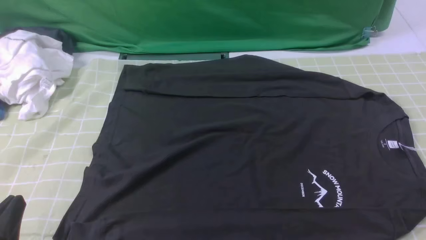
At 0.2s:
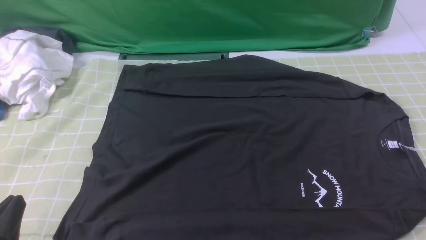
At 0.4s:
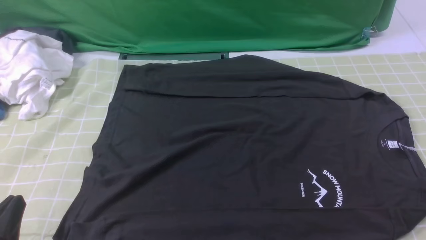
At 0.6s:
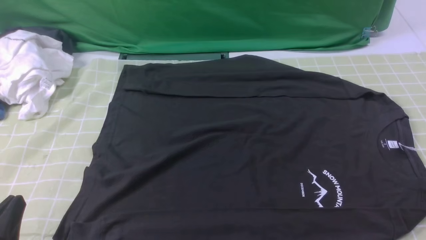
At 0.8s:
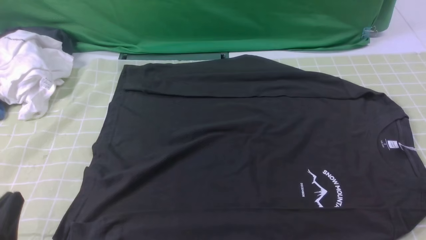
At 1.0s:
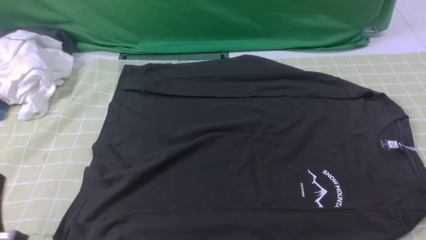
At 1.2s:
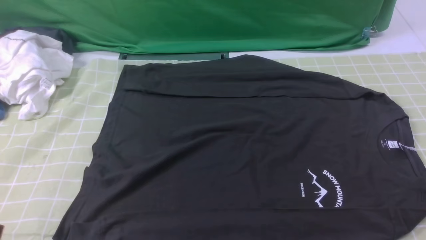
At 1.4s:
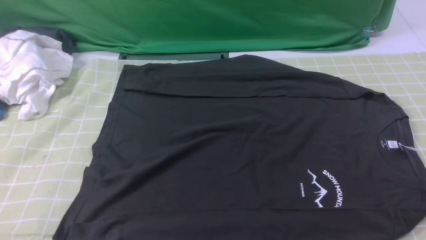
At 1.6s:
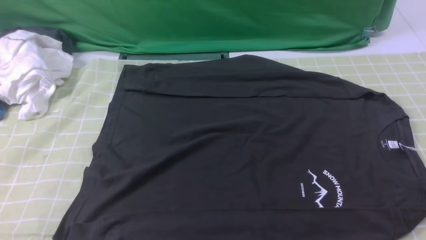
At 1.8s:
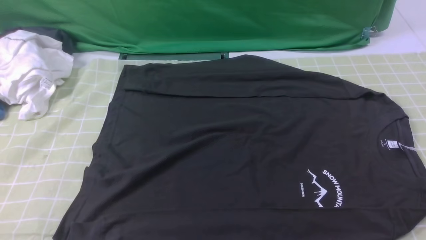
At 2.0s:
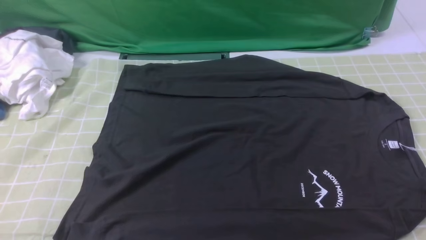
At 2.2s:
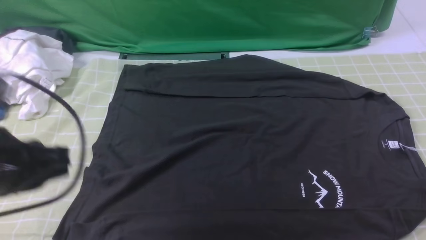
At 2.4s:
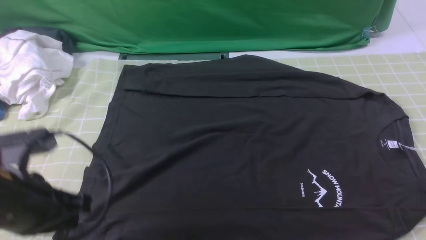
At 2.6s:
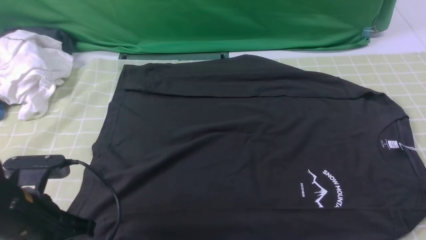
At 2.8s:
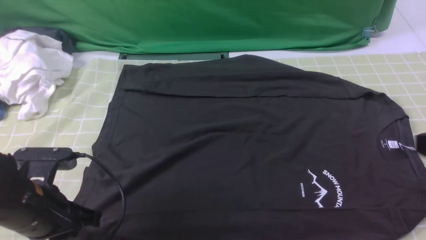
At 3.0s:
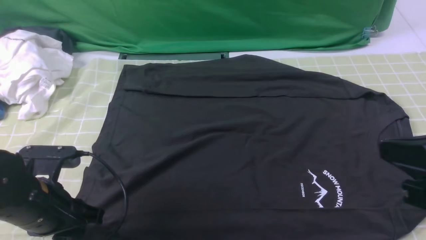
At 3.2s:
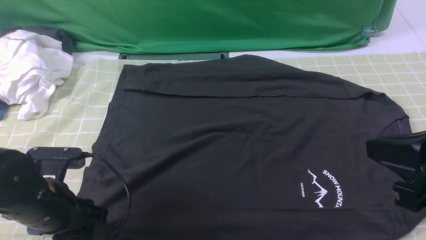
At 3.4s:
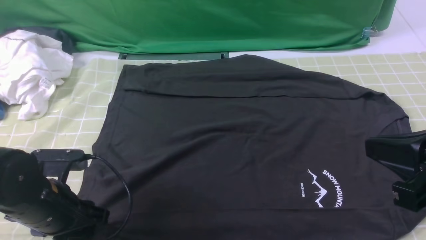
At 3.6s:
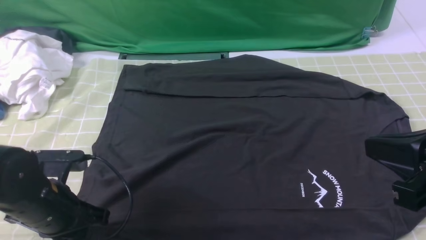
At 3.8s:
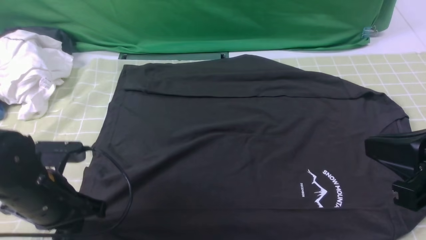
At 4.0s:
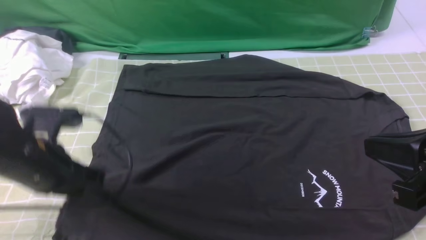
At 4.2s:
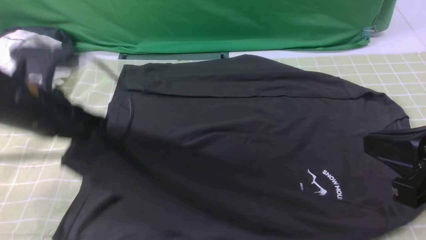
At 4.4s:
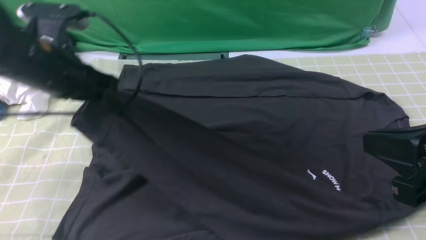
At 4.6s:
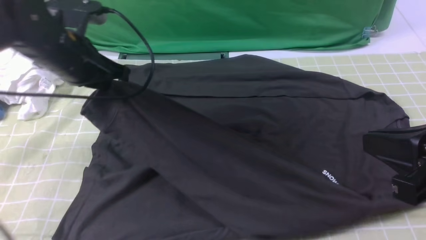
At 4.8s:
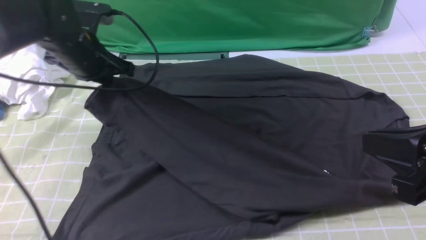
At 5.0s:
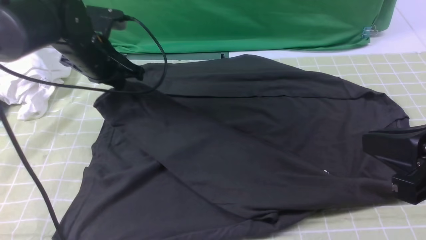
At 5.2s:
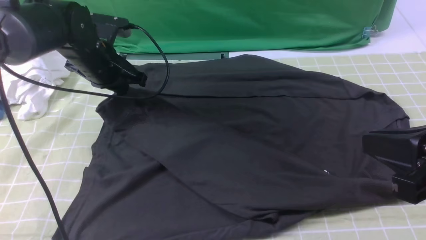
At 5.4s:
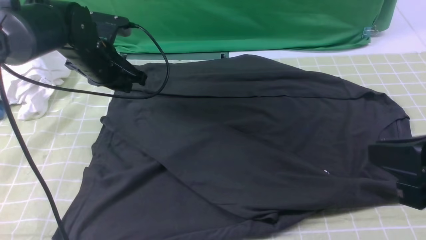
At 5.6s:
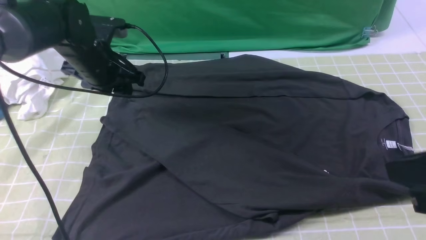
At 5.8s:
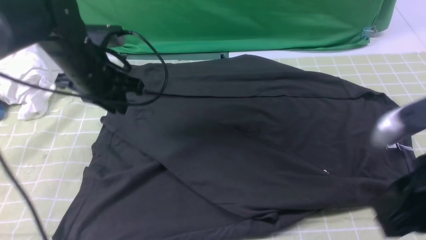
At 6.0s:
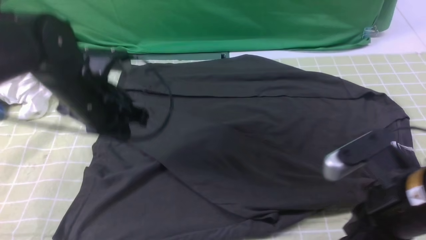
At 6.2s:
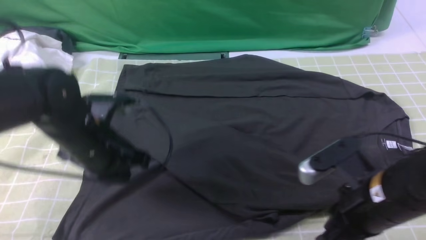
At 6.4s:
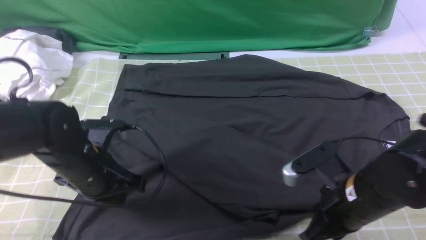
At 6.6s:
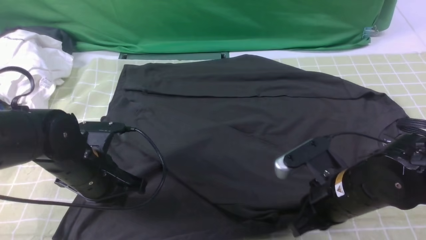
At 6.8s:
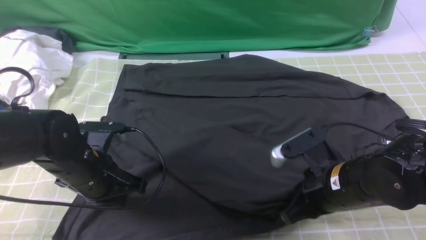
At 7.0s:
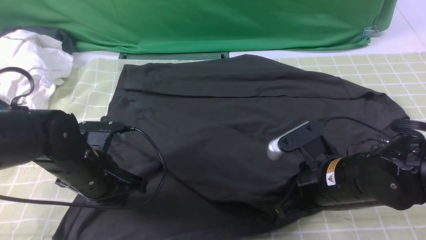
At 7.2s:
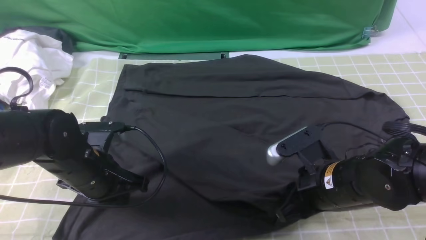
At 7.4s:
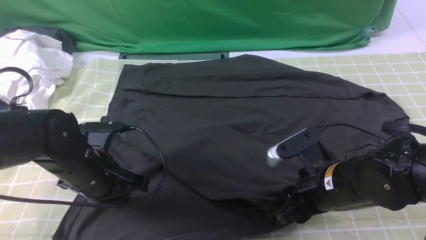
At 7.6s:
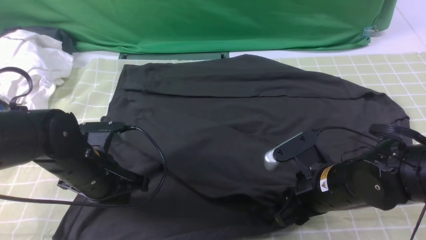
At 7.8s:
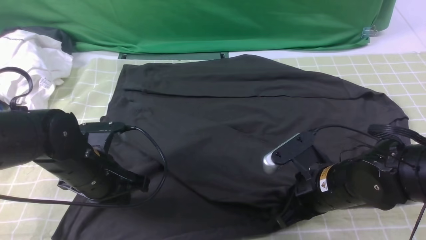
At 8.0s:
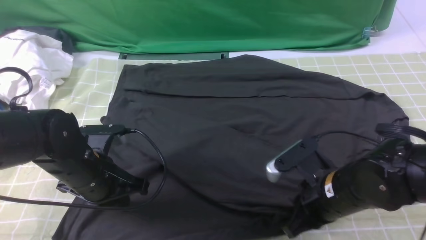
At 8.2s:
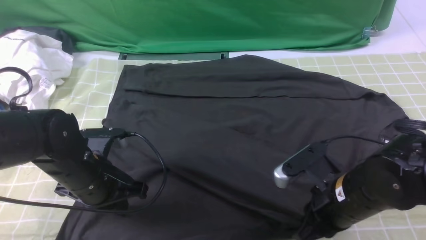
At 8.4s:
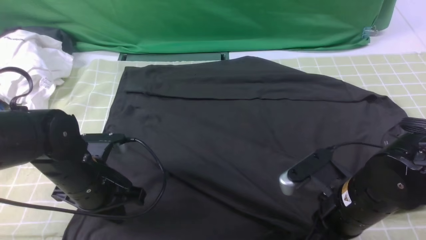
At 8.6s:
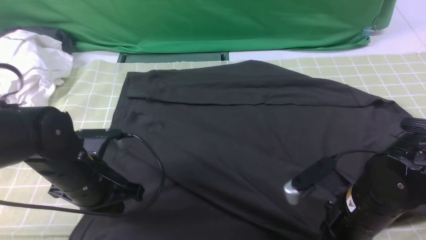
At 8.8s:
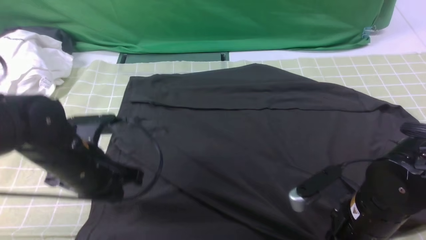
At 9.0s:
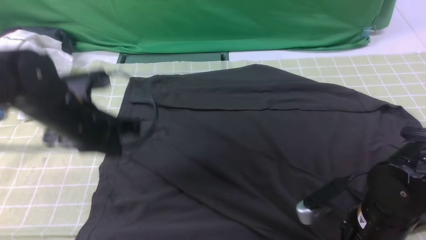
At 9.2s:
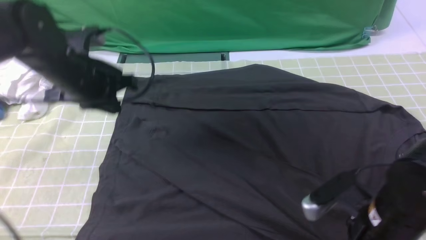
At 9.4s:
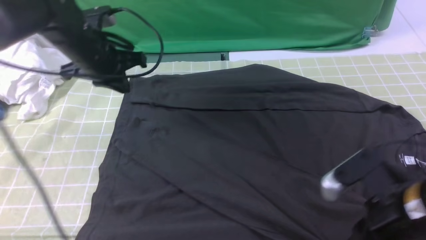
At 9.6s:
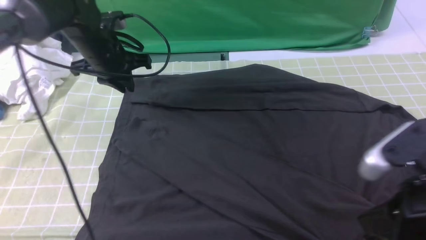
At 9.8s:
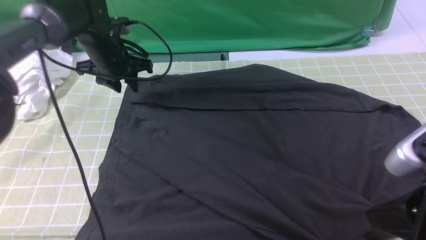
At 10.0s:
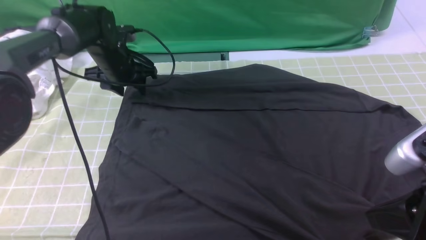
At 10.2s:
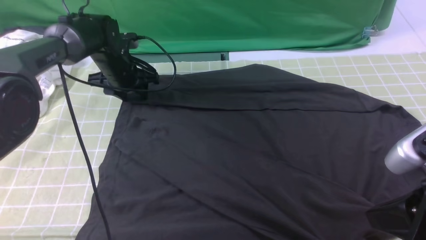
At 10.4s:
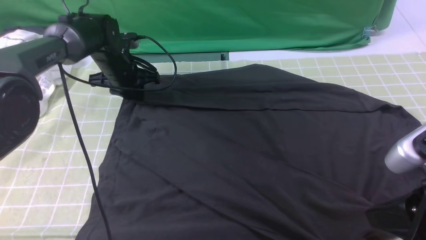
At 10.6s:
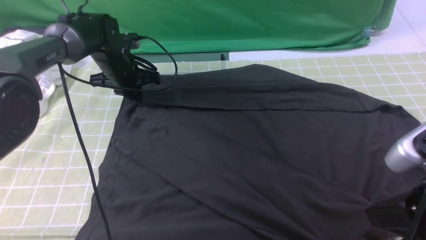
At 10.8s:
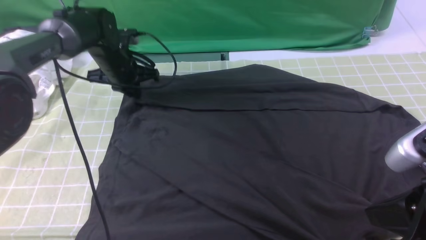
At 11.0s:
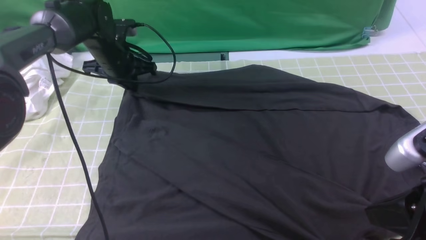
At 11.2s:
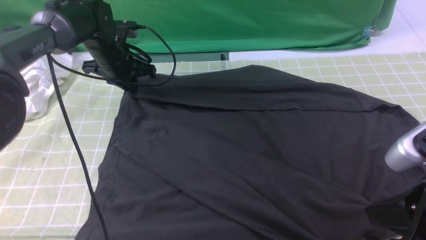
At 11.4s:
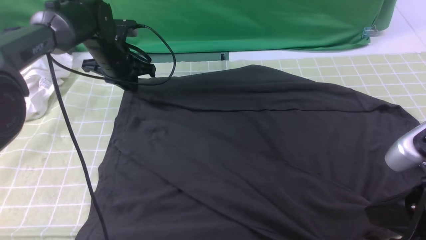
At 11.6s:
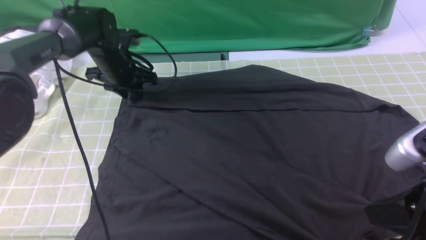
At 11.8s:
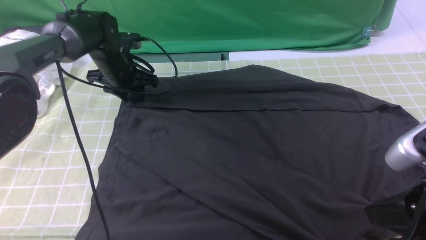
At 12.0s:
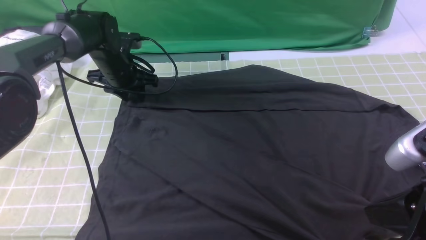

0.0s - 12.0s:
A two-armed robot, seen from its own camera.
Step, 0.0s - 3.6s: use the left arm to clamp the cuff closest to it.
Step, 3.8s - 5.4s: use the left arm to drag and place the cuff at the centered position on the left edge of the fabric.
Step, 5.6s - 10.6s: use the left arm to clamp the cuff farthest from it.
0.0s - 1.6s: The left gripper heads upward, covering some 10 cm.
1.6s - 3.0s: The right gripper heads upward, to the left and forward, covering about 15 cm, and closes its fingers. The left gripper is displaced forward and downward by roughly 20 cm, and opens its fingers.
3.0s - 4.4s: The left gripper moves forward and upward, about 15 cm, and closes its fingers.
4.4s - 6.0s: The grippers both shift downward by some 5 cm. The left gripper reaches roughly 10 cm forward, then returns, and opens, then closes again.
6.0s - 7.6s: The right gripper shifts some 10 cm downward and forward, and opens its fingers. The left gripper goes some 10 cm downward and backward.
7.6s - 9.0s: The right gripper travels backward by some 5 cm, and closes, then opens again. The left gripper moves upward, about 5 cm.
9.0s - 10.4s: The right gripper shifts approximately 15 cm upward and backward, and closes up. The left gripper heads forward and downward, covering some 20 cm, and opens.
10.4s - 12.0s: The left gripper closes and opens again.

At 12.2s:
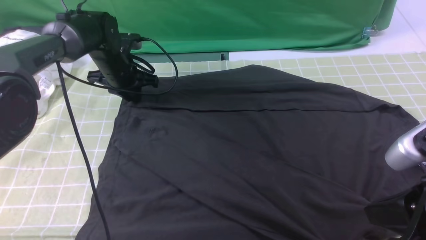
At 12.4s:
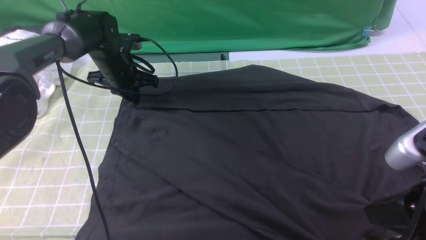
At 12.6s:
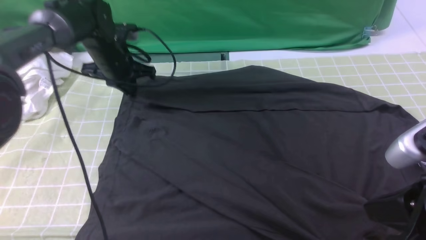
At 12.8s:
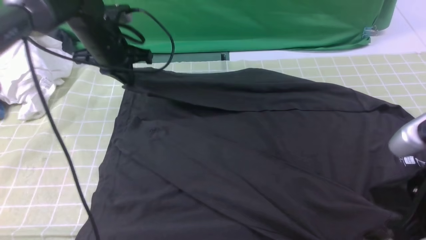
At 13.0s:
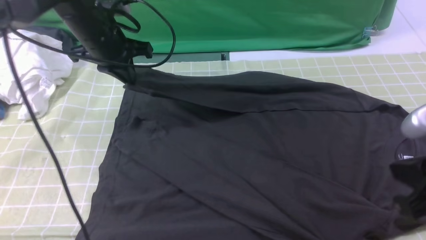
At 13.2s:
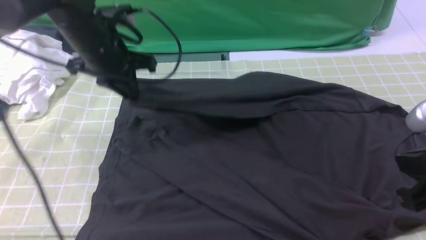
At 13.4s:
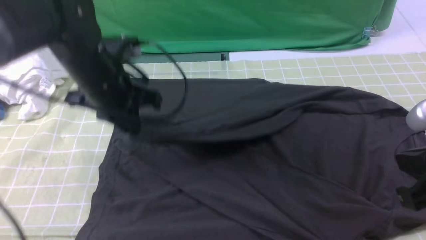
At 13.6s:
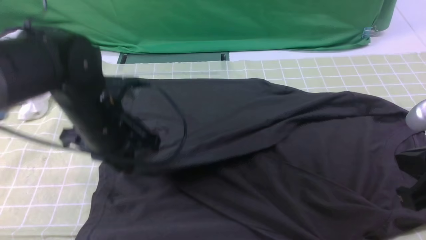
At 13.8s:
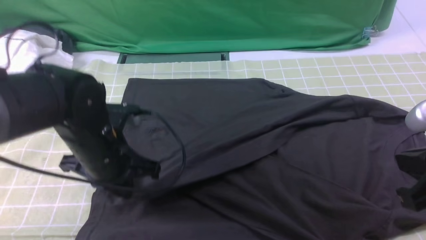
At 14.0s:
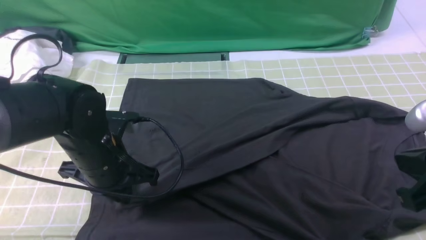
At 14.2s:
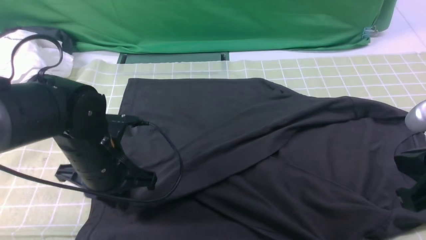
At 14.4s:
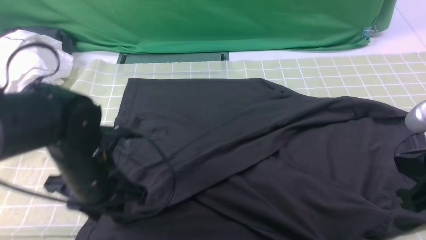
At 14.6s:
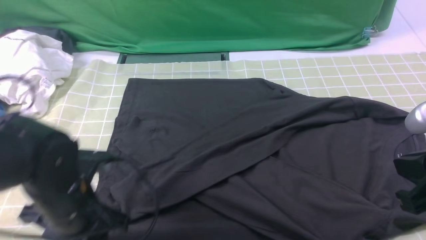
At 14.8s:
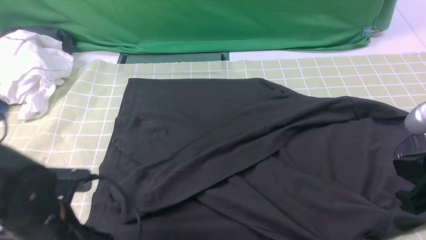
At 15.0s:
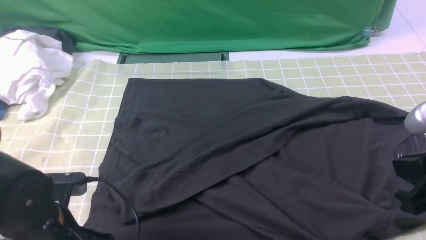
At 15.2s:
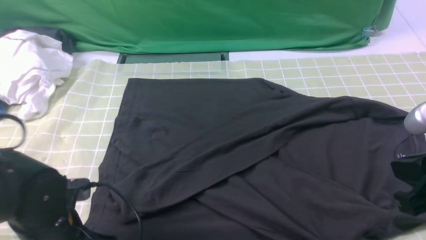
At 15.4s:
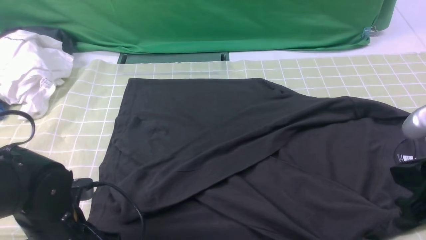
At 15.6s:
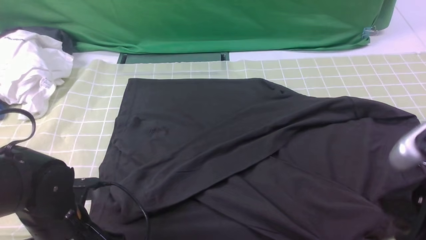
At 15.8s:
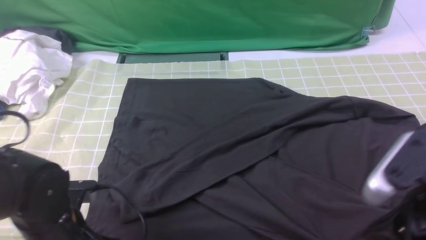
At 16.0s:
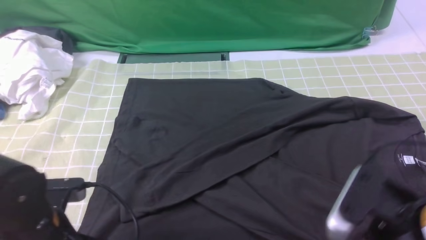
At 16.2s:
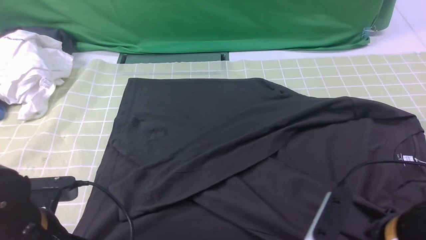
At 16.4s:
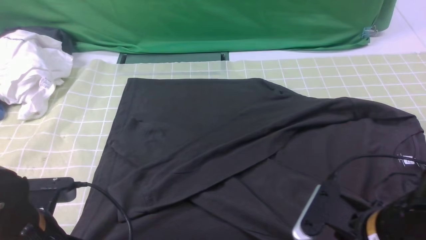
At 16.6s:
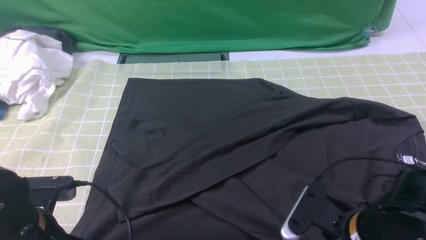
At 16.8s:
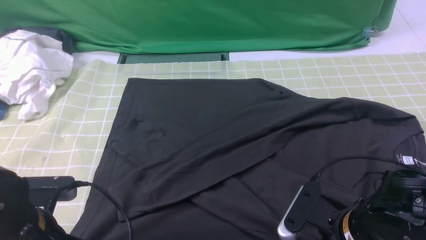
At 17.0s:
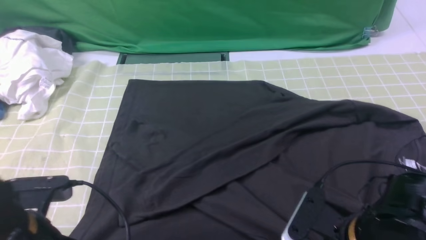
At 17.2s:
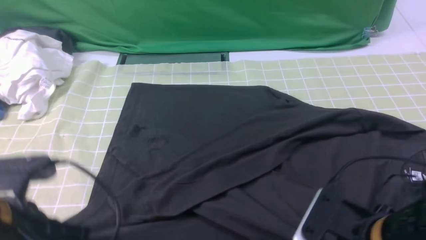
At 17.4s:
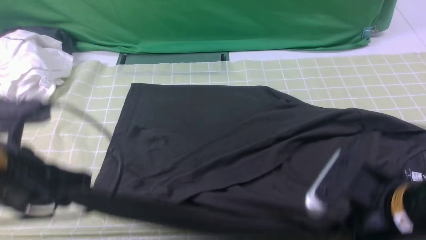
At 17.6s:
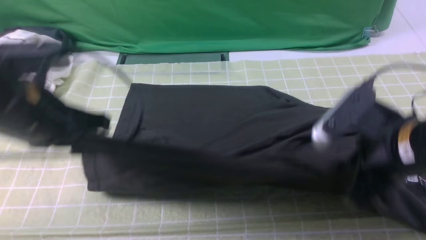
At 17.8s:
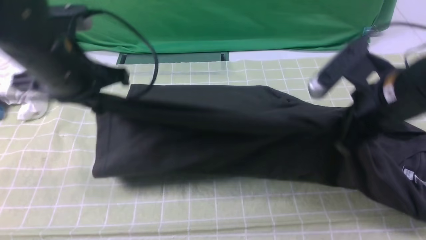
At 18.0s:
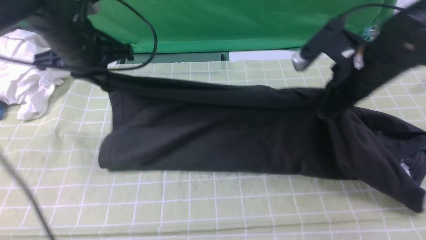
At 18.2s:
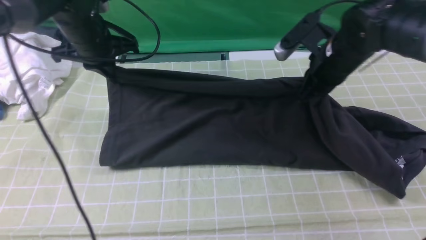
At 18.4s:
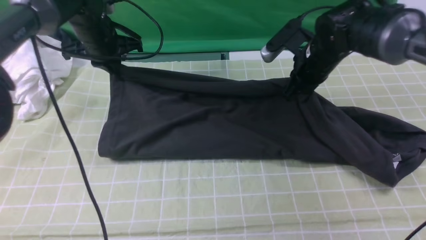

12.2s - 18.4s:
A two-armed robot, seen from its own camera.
Step, 12.2s - 14.2s: use the left arm to drag and drop the cuff onto the cuff closest to the left arm.
Step, 14.4s - 16.8s: use both arms simultaneously to clamp the lower edge of the clothing fabric.
12.2s - 13.8s: The left gripper is displaced backward by about 20 cm.
13.8s - 15.4s: The left gripper travels backward and downward by roughly 10 cm, and opens.
15.4s - 16.8s: The left gripper changes place by roughly 5 cm, and closes up; the right gripper heads downward and to the left, covering approximately 15 cm, and opens, then closes once more.
16.8s - 18.4s: The grippers both shift forward by some 30 cm.
